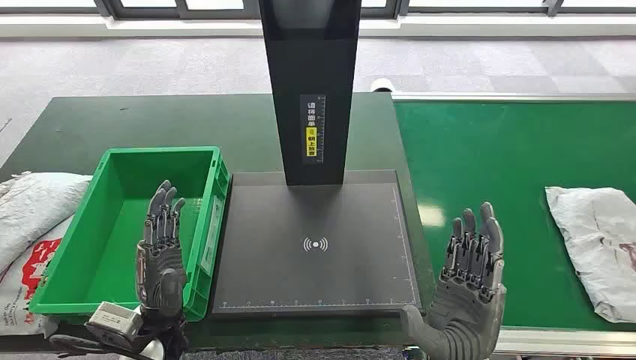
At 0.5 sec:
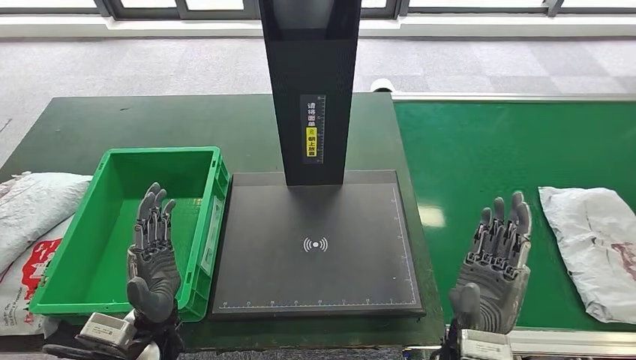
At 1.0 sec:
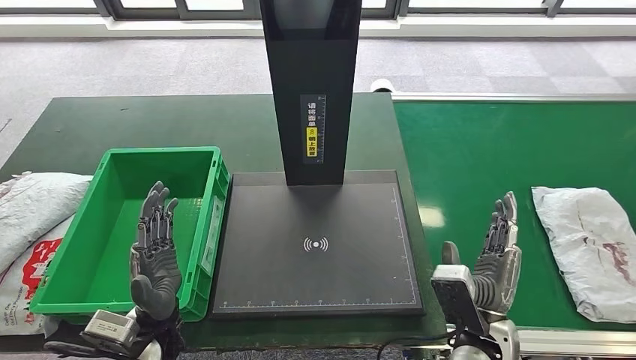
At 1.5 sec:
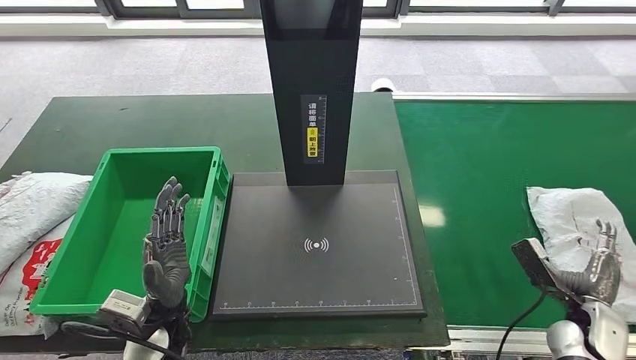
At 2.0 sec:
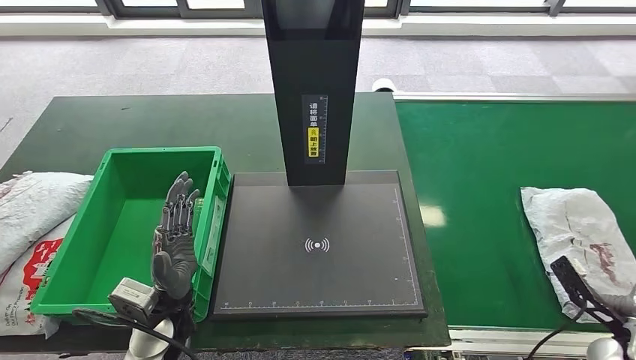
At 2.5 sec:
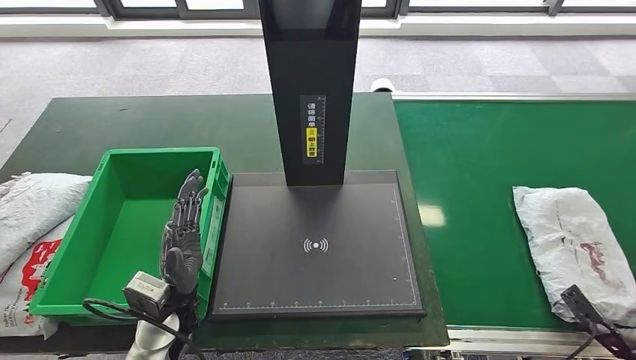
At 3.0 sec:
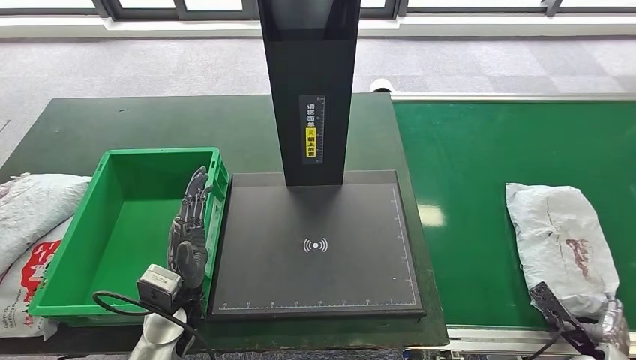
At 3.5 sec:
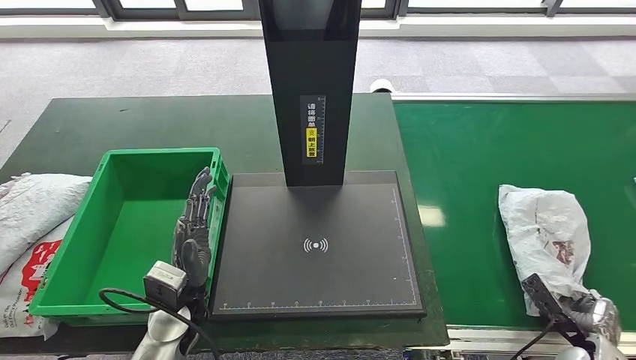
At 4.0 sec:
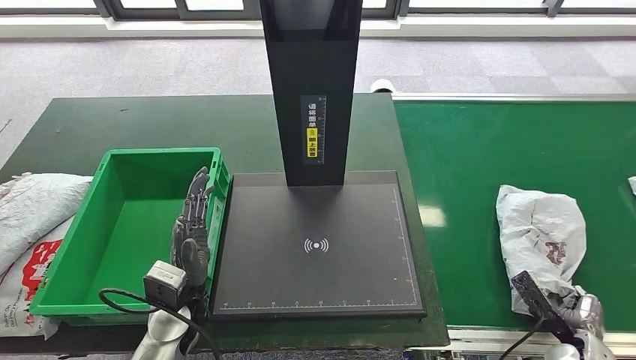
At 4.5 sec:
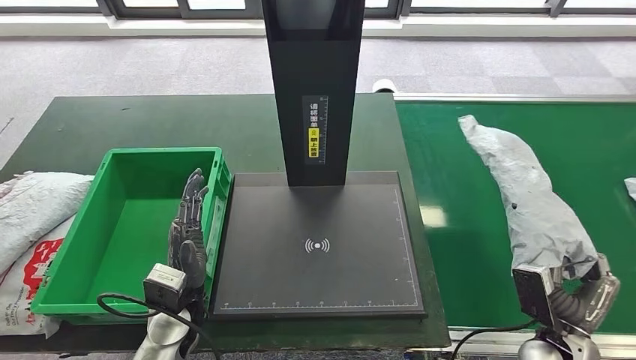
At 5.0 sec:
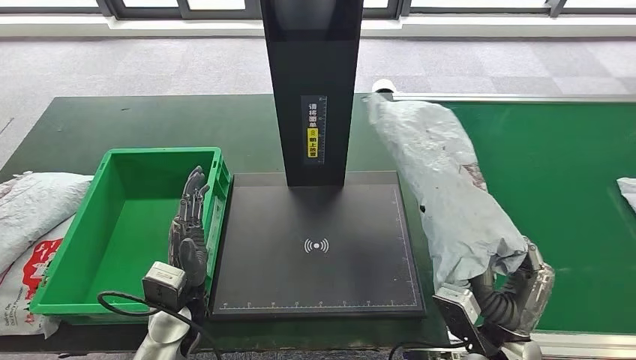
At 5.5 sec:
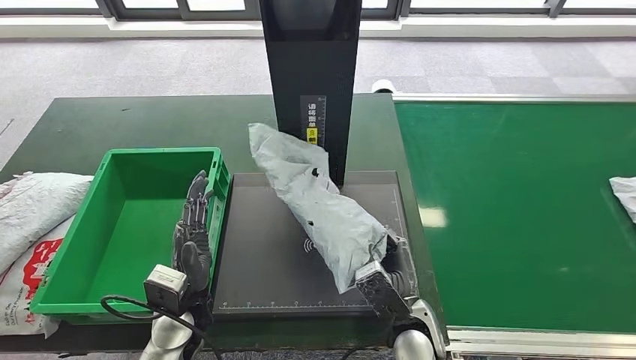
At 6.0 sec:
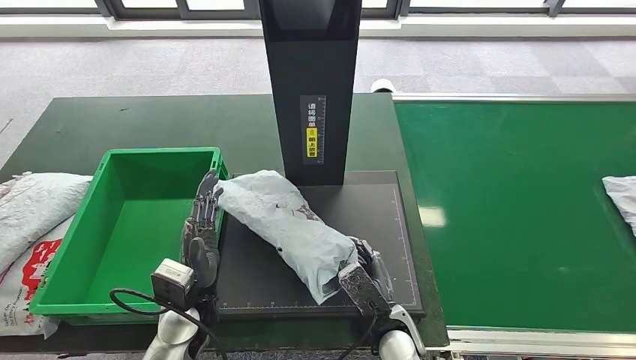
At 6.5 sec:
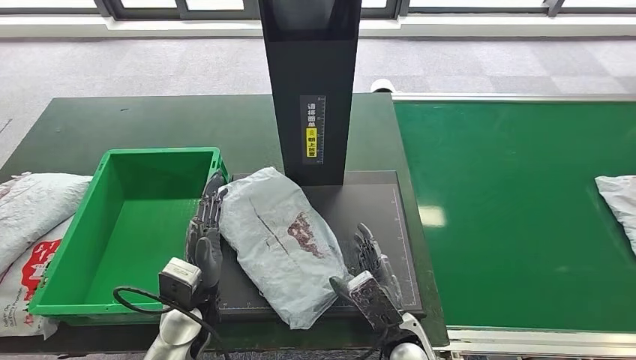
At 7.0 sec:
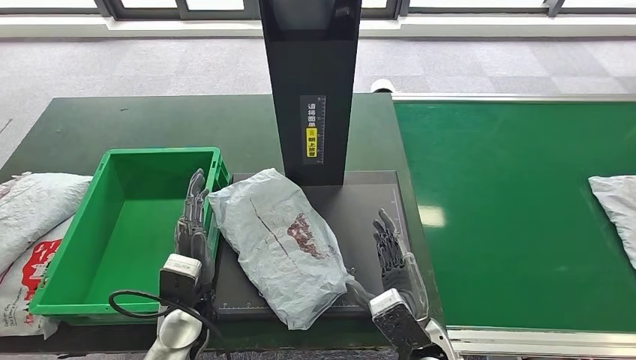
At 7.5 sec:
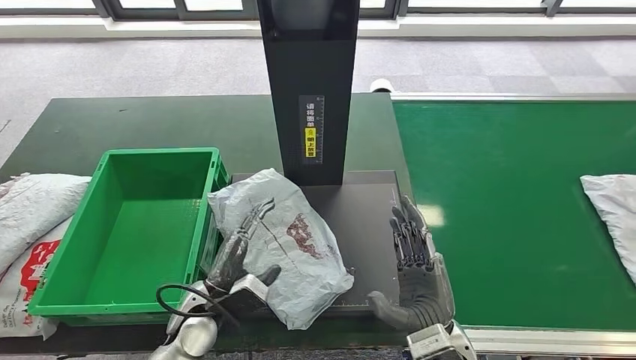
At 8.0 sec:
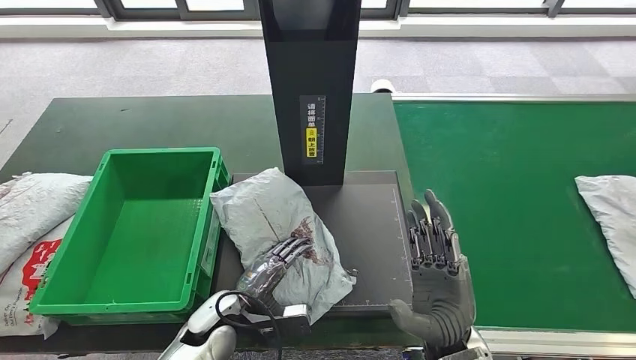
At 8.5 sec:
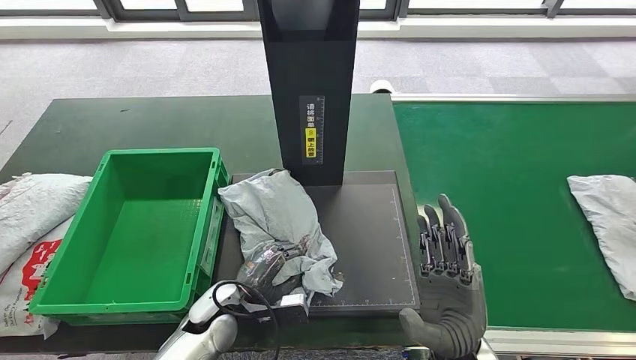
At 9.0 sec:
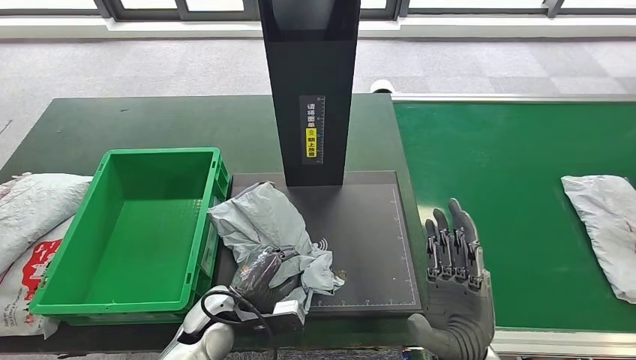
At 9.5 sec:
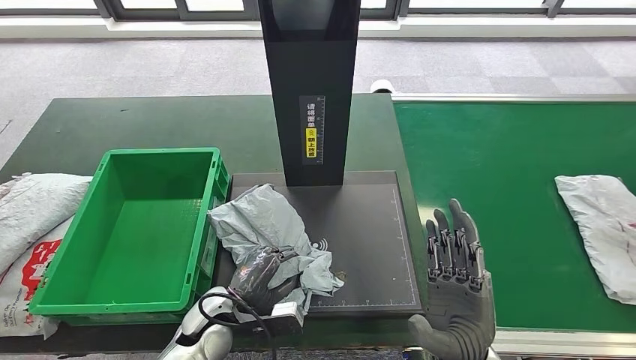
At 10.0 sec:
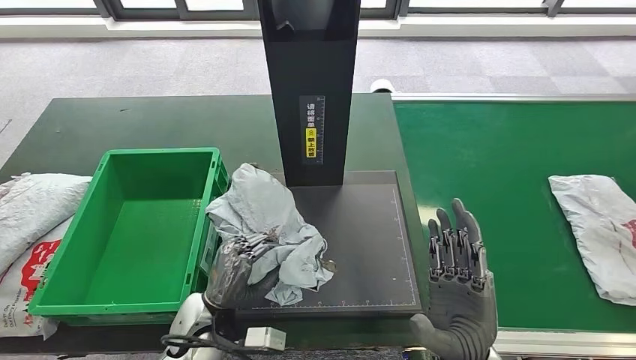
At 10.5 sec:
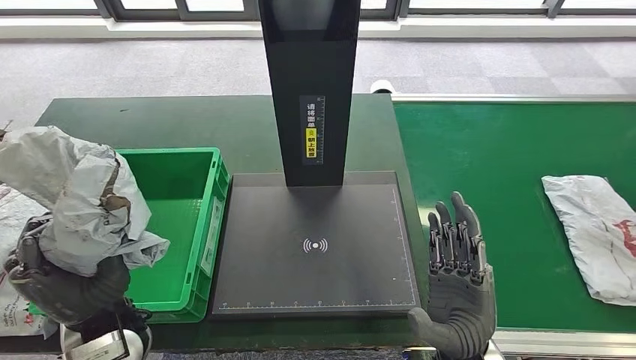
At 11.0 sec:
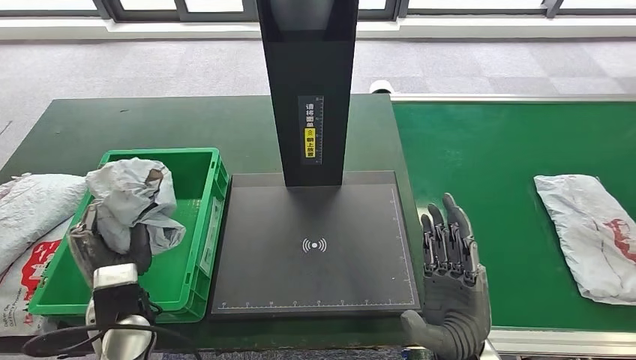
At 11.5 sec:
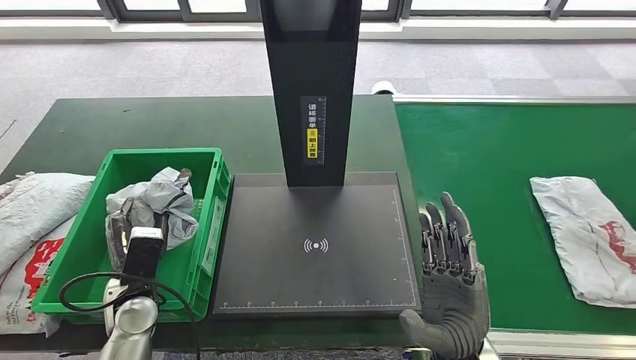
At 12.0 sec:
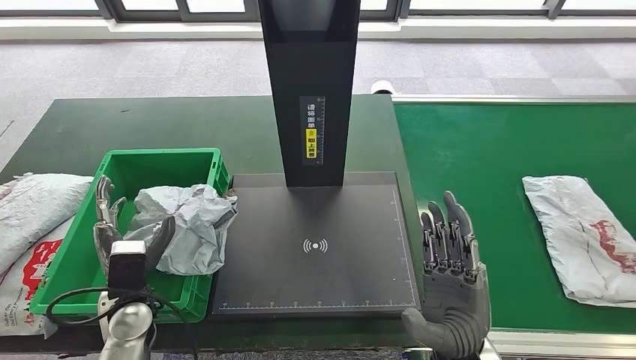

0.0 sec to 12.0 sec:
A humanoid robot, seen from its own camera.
Step, 0.0 sec to 4.0 sec: Take the parcel off the conveyor belt.
Step, 4.5 sec to 6.5 sec: Place the parcel onto the inbound machine.
Step, 7.0 sec to 10.0 sec: Pick up the parcel from the inbound machine.
2.0 sec to 4.0 sec: The right hand travels to the left and downward by about 10 cm.
4.0 sec to 6.0 sec: The right hand is displaced to the left by about 35 cm.
6.0 sec to 8.0 sec: The right hand travels upward and to the right by about 15 cm; the left hand moves downward, approximately 5 cm.
8.0 sec to 10.0 sec: The left hand shifts by some 5 cm.

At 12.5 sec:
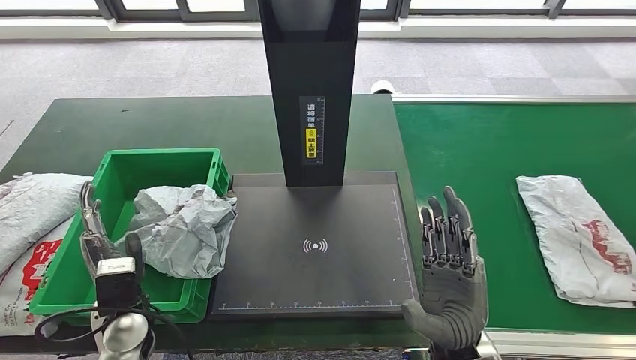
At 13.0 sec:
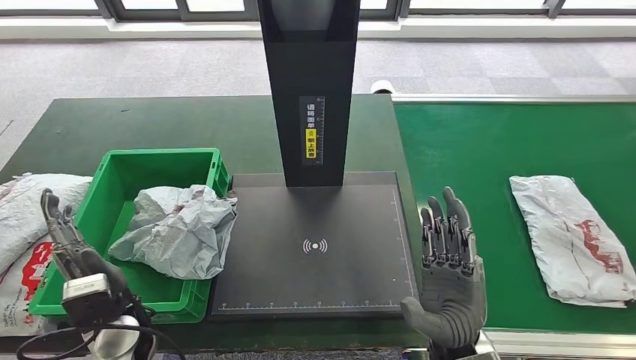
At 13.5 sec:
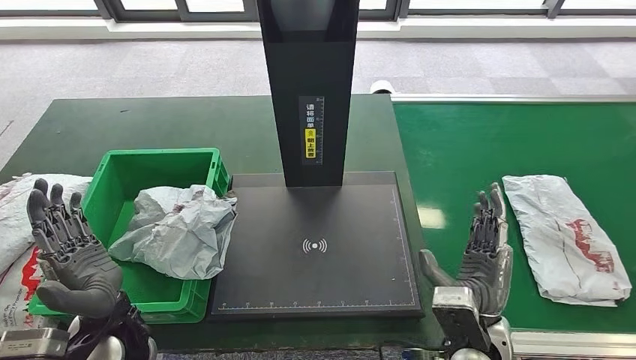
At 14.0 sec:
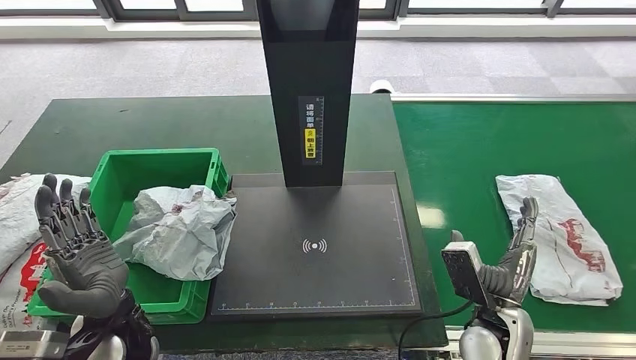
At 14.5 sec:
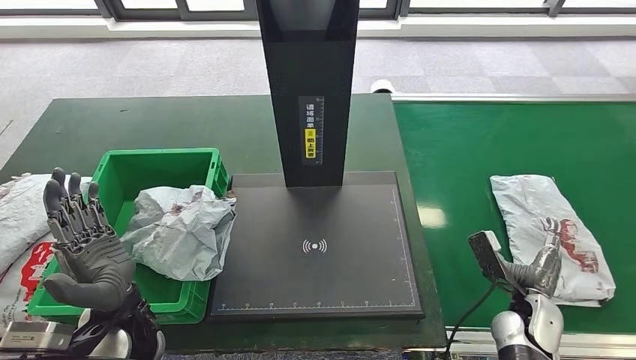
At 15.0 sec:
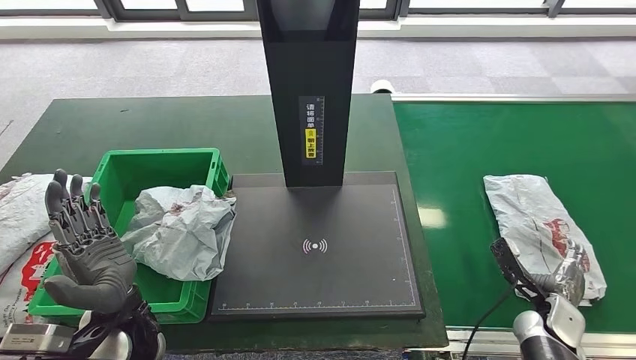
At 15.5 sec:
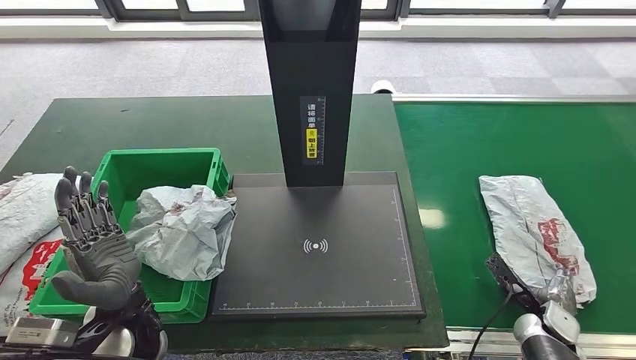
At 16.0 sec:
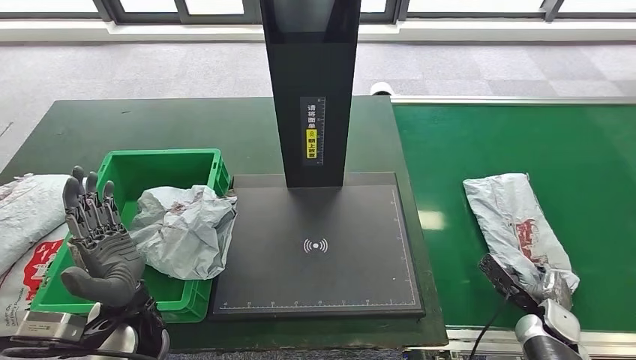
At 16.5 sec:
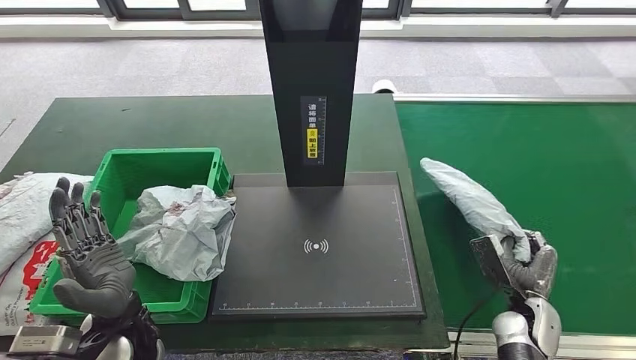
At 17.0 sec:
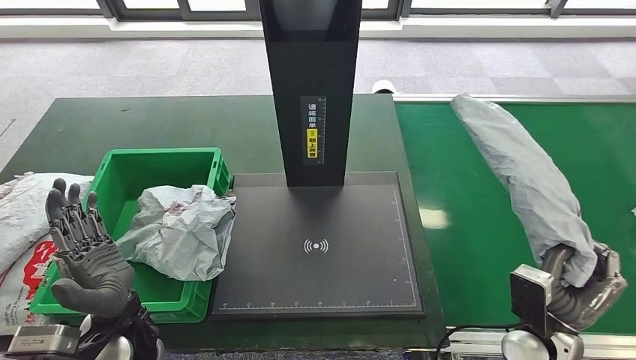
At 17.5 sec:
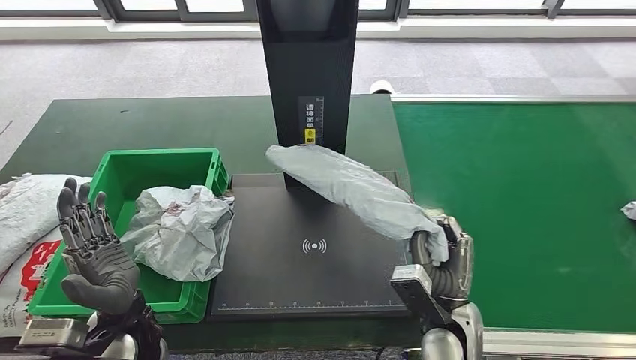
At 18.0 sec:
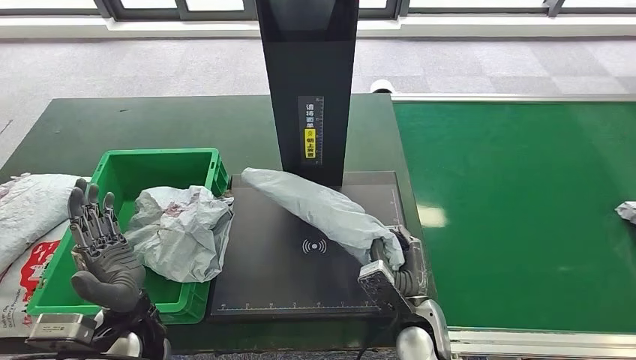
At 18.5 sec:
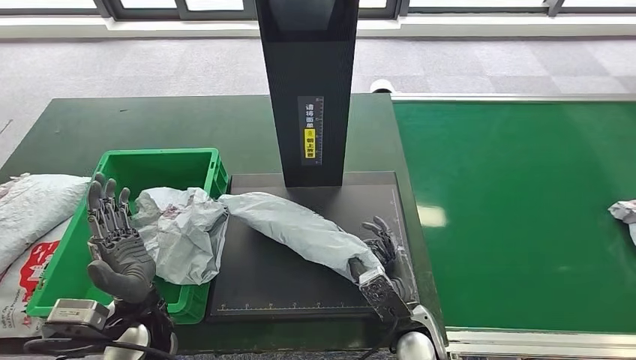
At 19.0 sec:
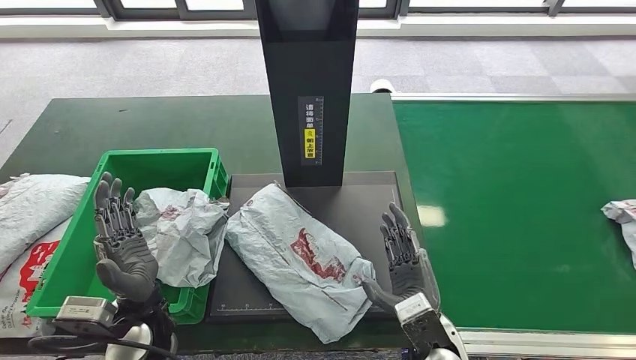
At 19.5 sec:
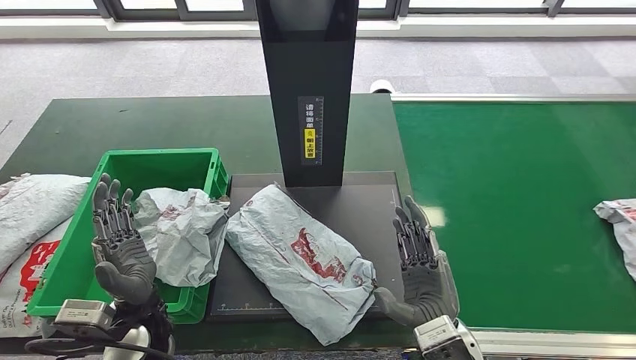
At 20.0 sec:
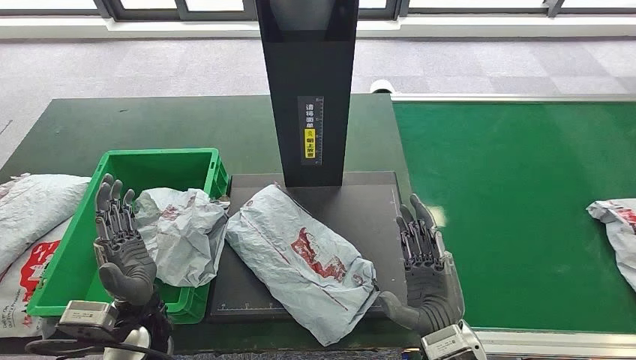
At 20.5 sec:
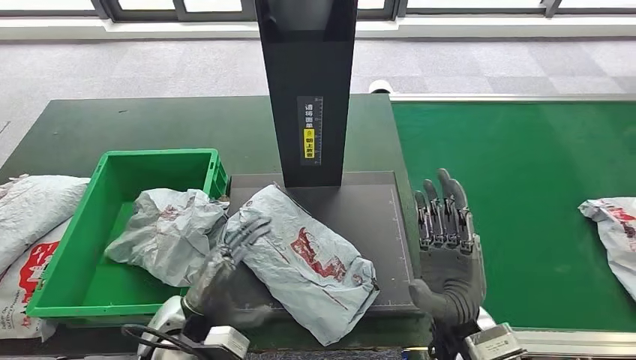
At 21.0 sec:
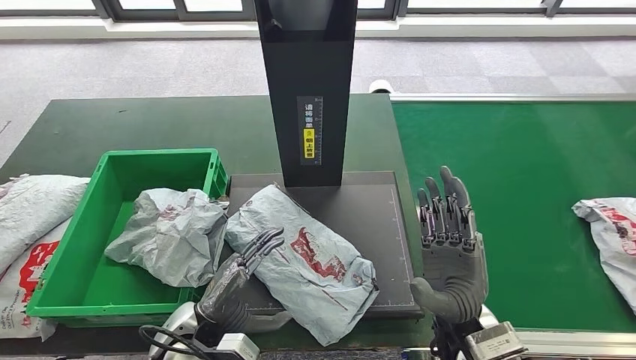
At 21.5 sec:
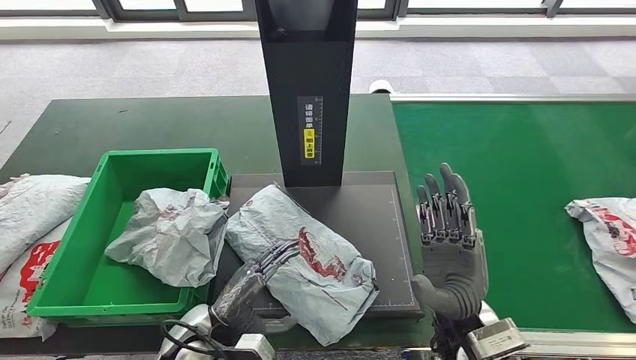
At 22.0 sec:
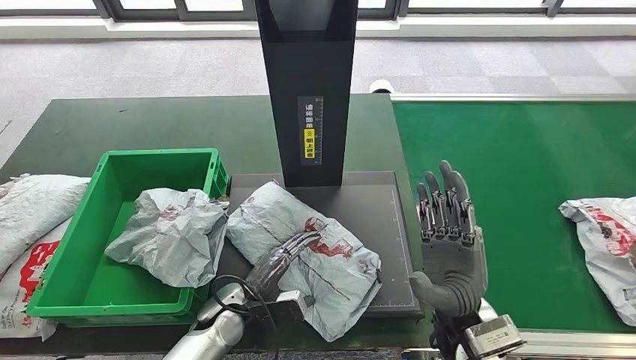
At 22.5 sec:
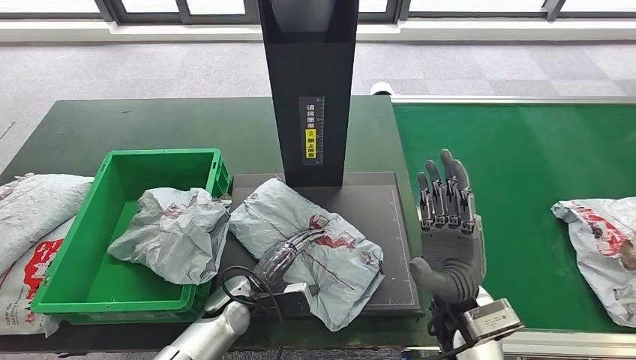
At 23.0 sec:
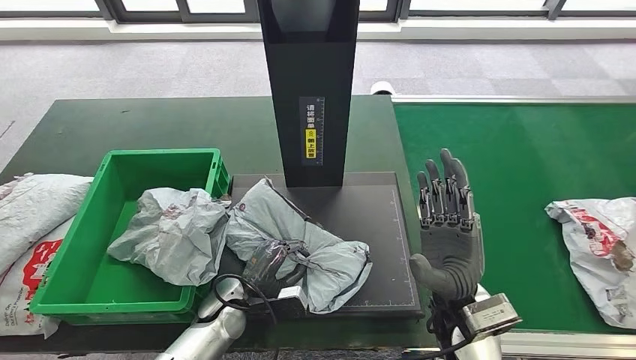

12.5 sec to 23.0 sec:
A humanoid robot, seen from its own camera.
Step, 13.0 sec to 17.0 sec: Pick up the parcel from the conveyor belt.
Step, 17.5 sec to 19.5 sec: Place the parcel onto the inbound machine.
12.5 sec to 14.5 sec: The right hand is displaced to the right and downward by roughly 20 cm. The left hand is displaced upward by approximately 5 cm.
19.0 sec to 21.0 sec: The left hand heads to the right, covering some 5 cm. Meanwhile the right hand goes approximately 5 cm upward.
